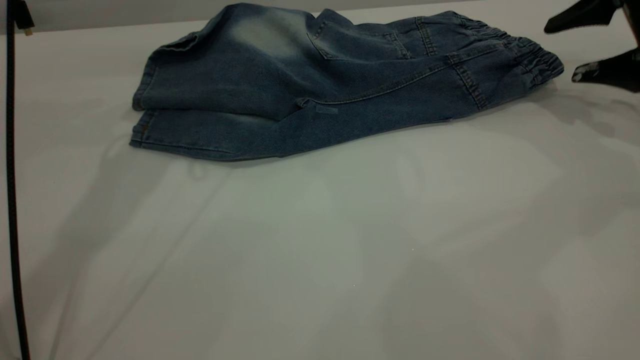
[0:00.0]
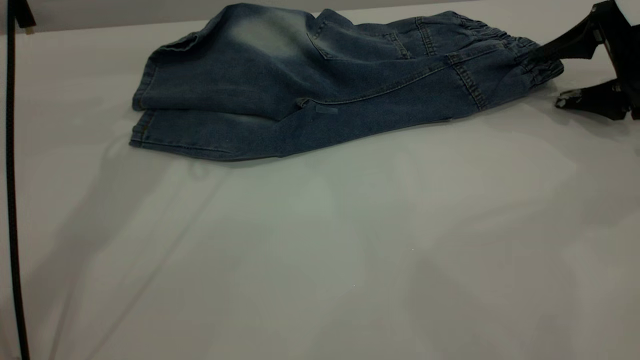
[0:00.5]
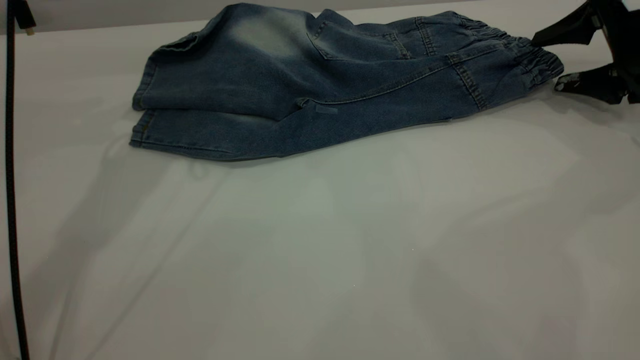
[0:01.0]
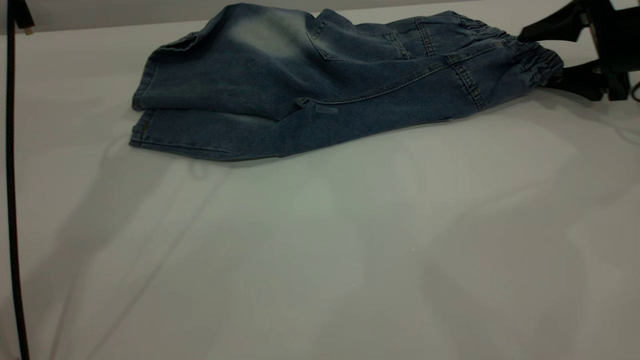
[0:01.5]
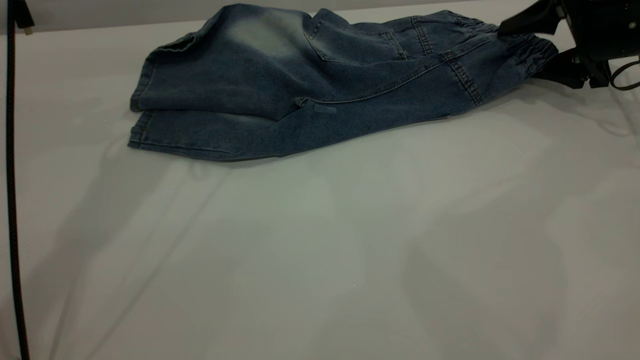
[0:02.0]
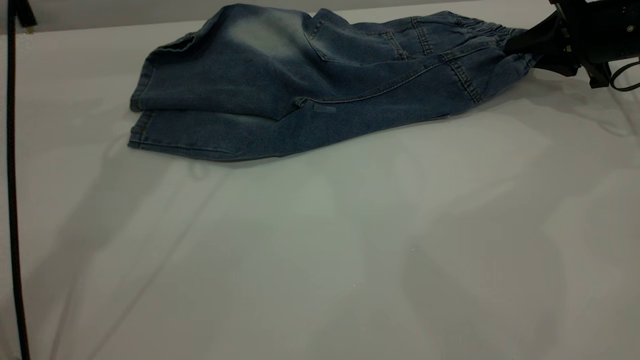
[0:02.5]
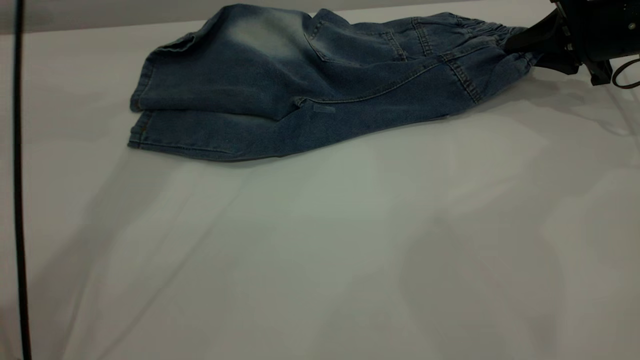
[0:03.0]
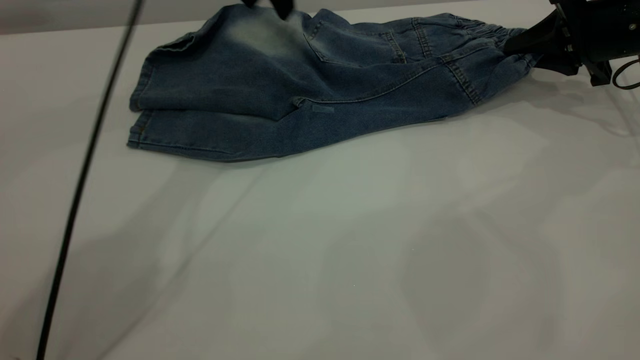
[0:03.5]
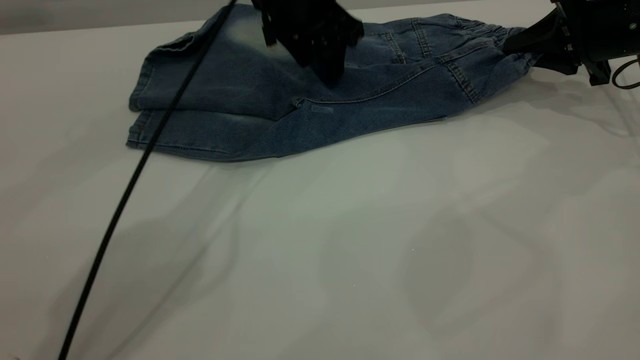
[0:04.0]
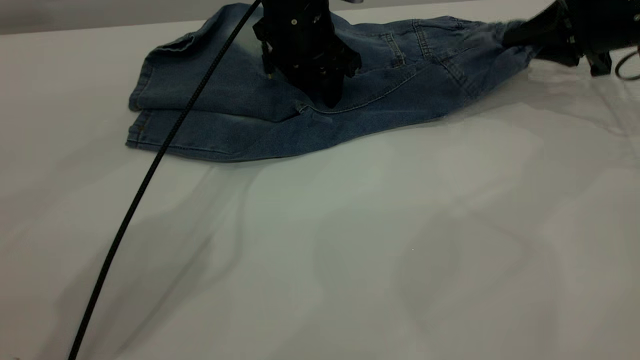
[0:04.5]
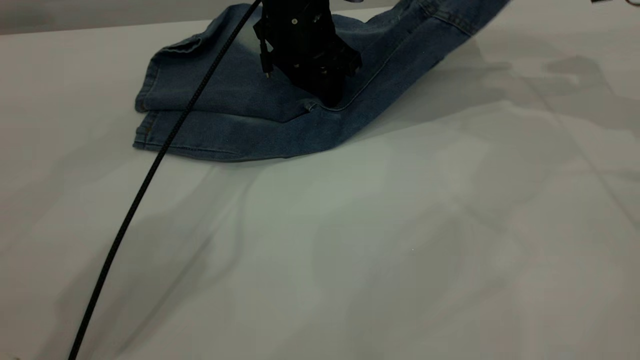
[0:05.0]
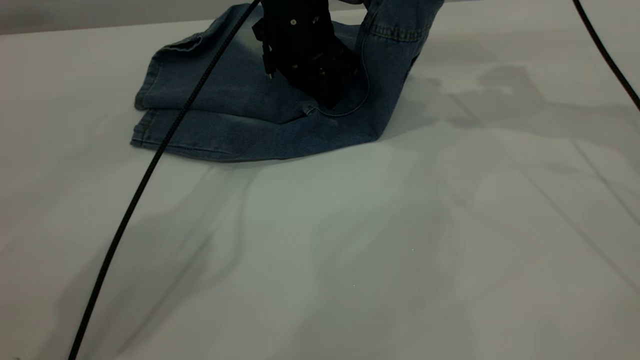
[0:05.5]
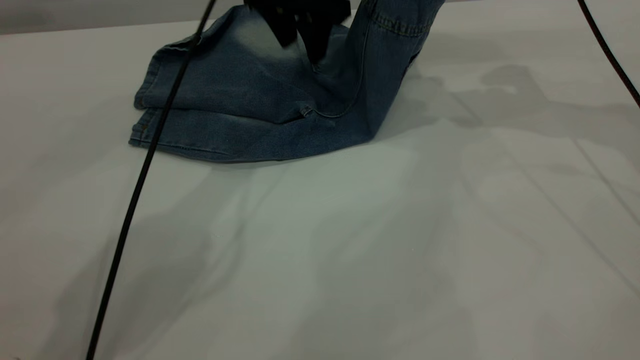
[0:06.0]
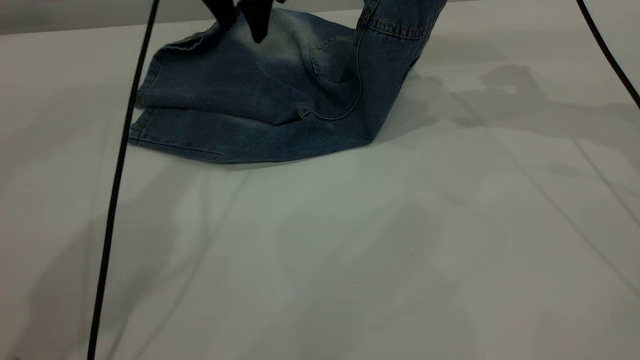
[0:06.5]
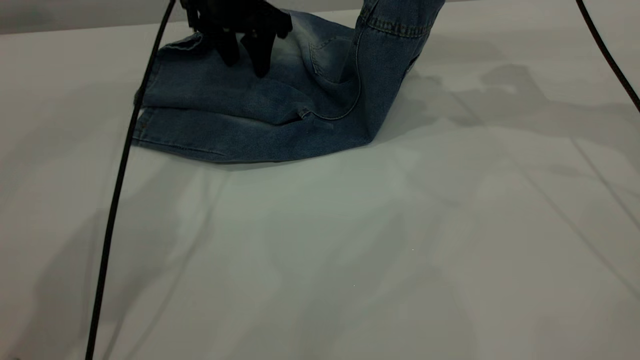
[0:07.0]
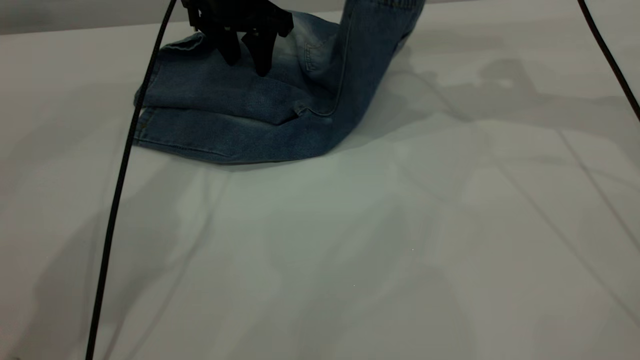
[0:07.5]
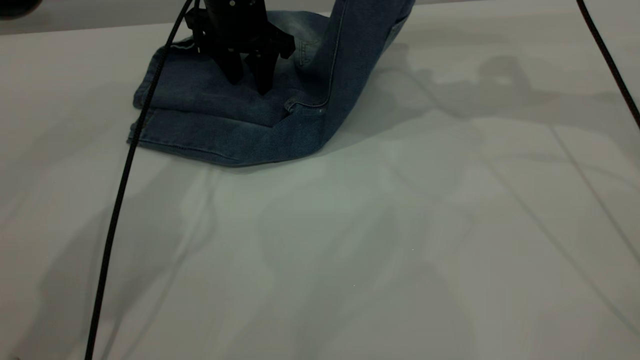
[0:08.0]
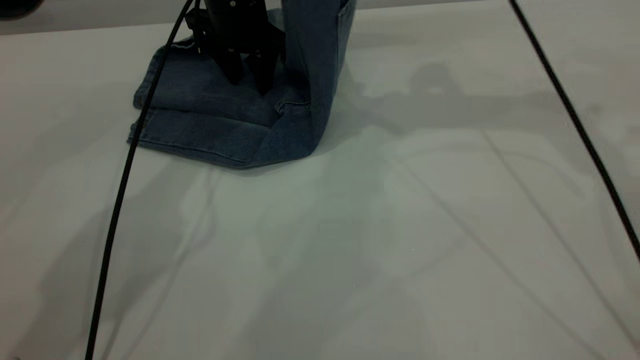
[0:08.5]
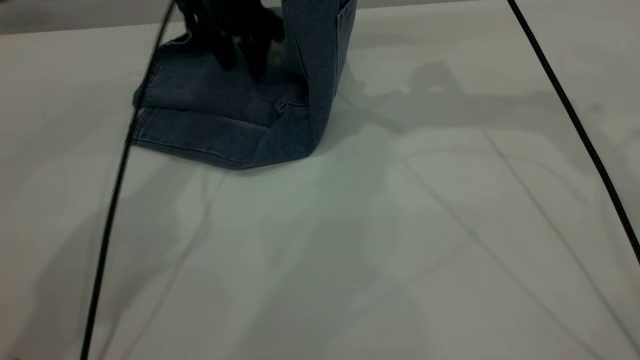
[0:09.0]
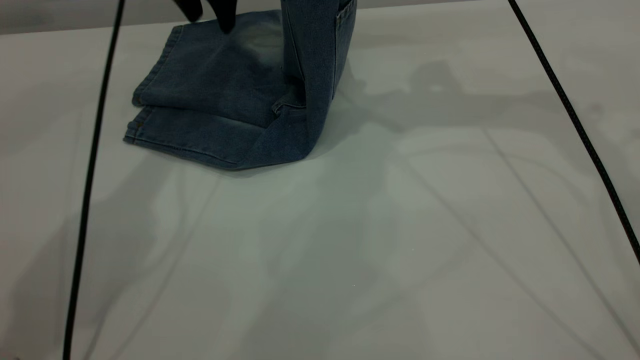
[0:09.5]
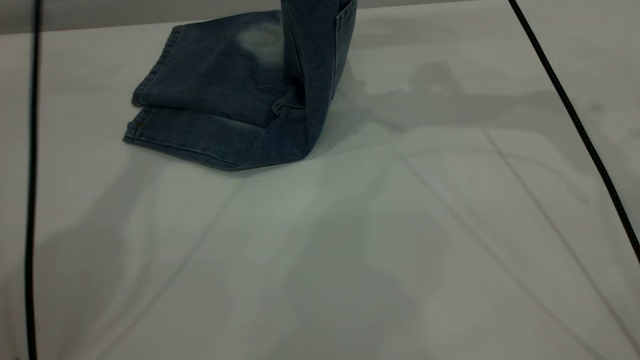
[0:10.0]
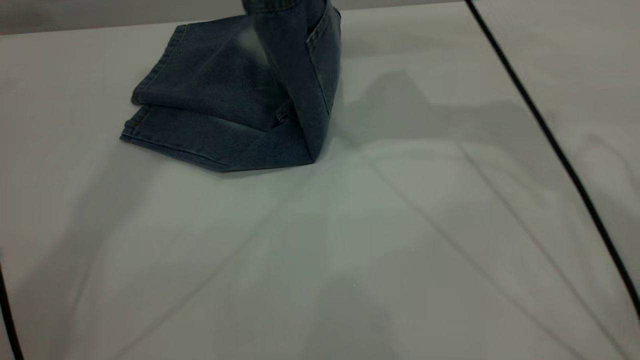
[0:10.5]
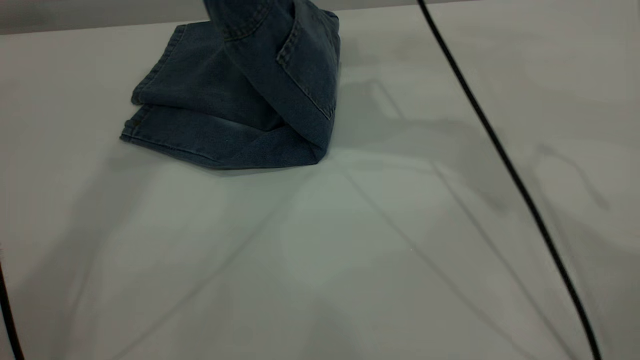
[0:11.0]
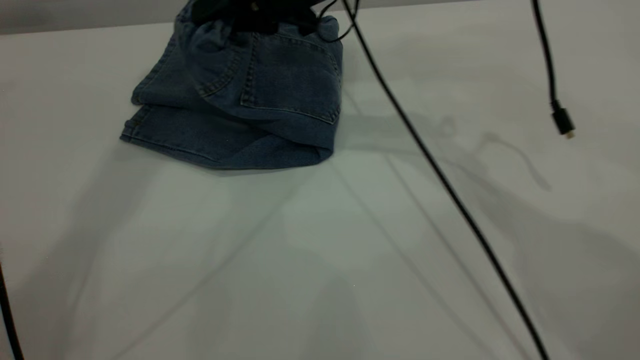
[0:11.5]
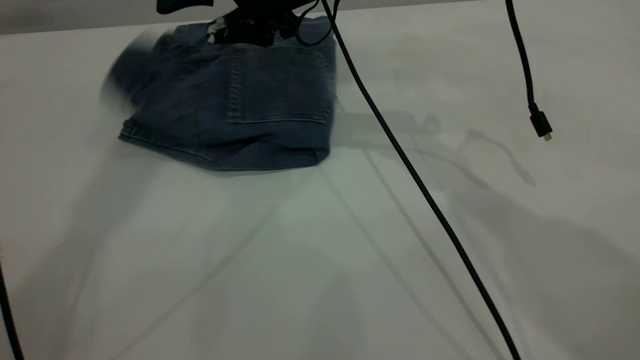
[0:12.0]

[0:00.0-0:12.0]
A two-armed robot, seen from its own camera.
0:00.0 to 0:02.0: The right gripper shifts by some 5 cm.
0:02.0 to 0:04.0: The right gripper closes, while the left gripper moves to the right, downward and forward, roughly 20 cm.
0:04.0 to 0:06.0: The right gripper shifts some 15 cm upward and to the left.
0:06.0 to 0:08.0: The left gripper heads downward and to the left, covering some 10 cm.
0:08.0 to 0:10.0: The right gripper shifts some 5 cm to the left. Meanwhile the left gripper is displaced upward by about 25 cm.
0:10.0 to 0:12.0: The right gripper moves to the left and downward, approximately 20 cm, and opens. Meanwhile the left gripper shifts roughly 15 cm upward and backward.

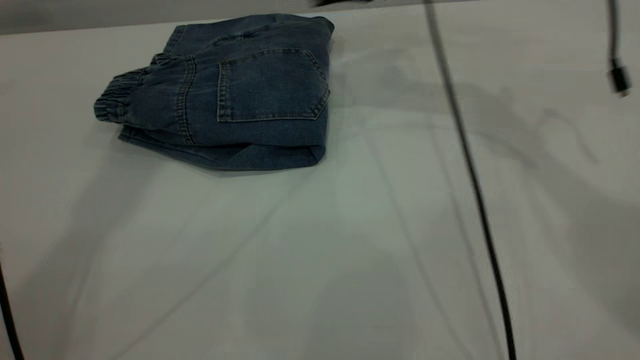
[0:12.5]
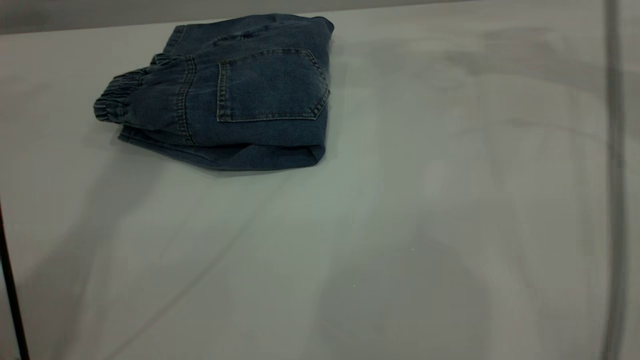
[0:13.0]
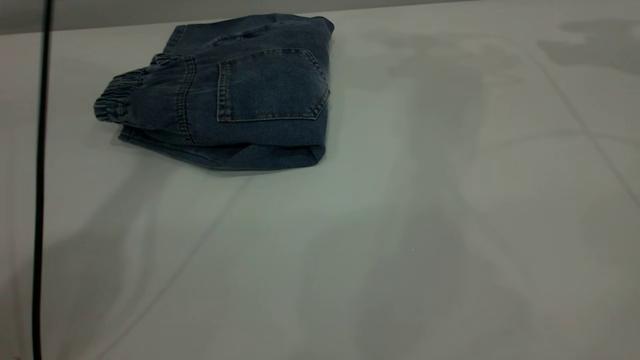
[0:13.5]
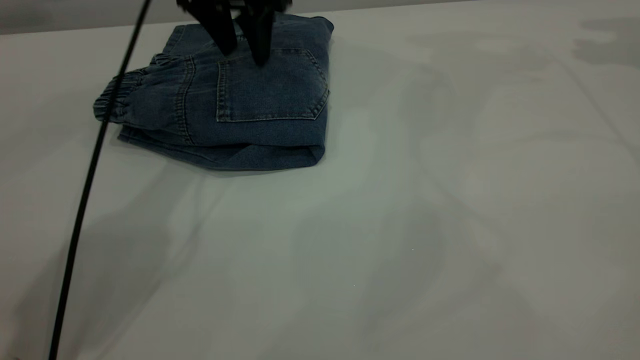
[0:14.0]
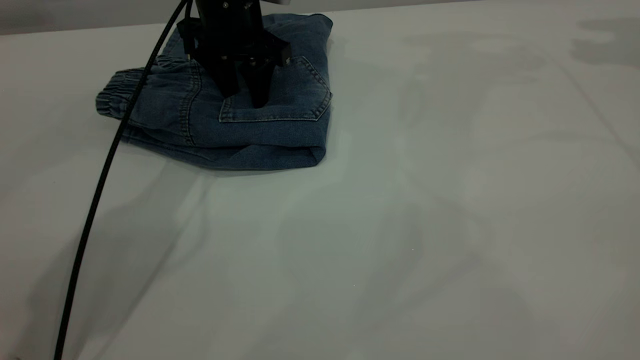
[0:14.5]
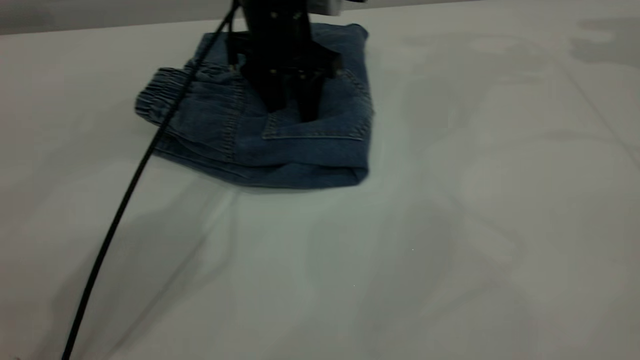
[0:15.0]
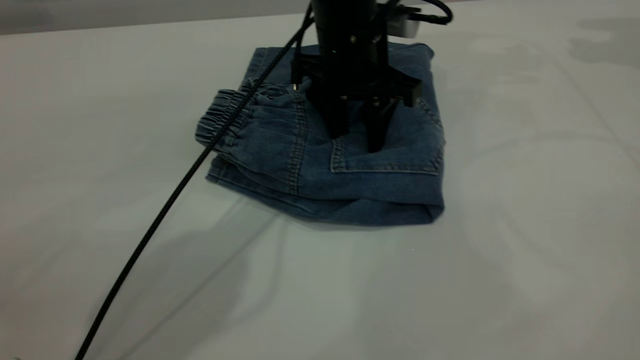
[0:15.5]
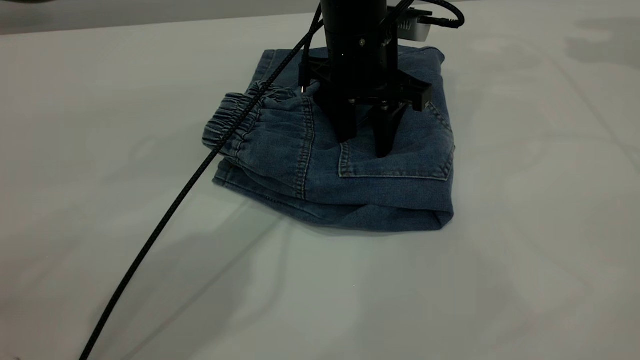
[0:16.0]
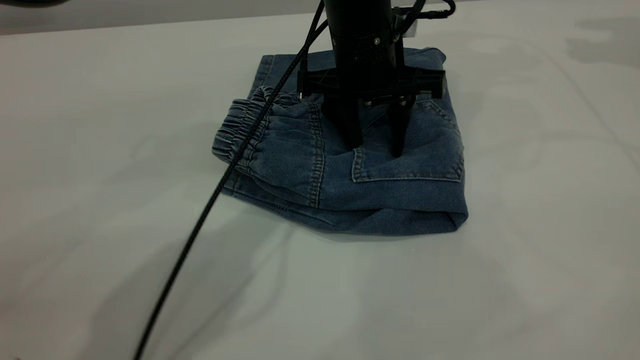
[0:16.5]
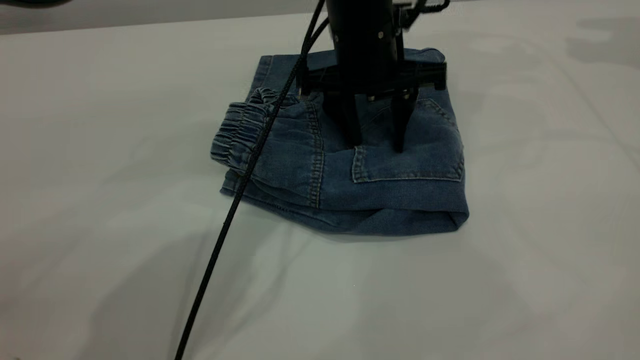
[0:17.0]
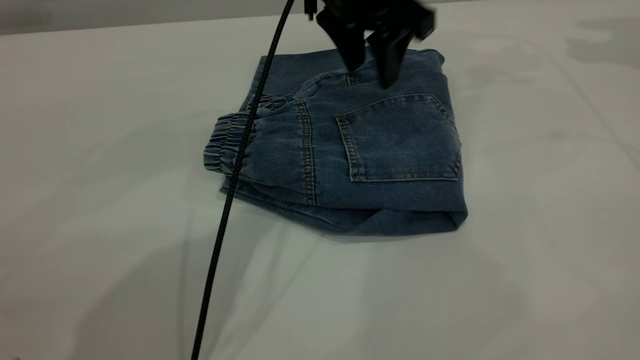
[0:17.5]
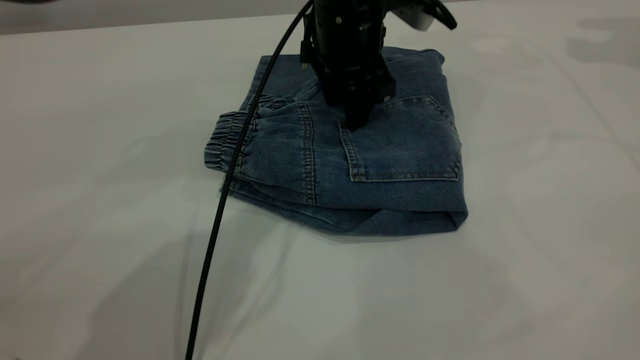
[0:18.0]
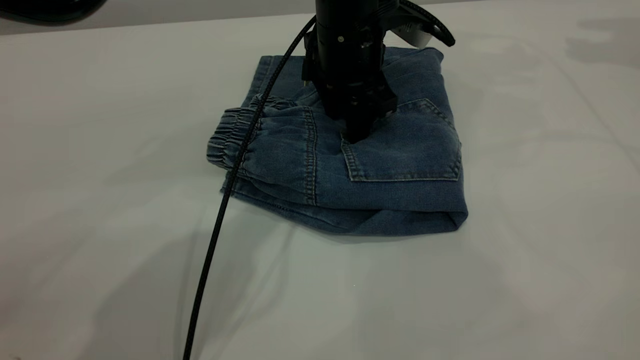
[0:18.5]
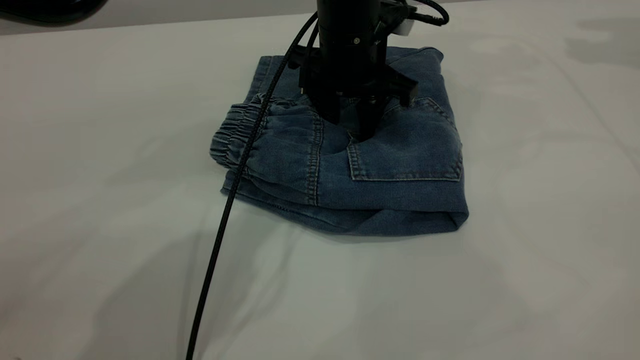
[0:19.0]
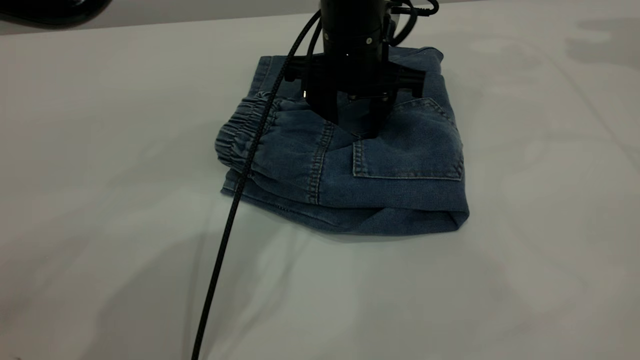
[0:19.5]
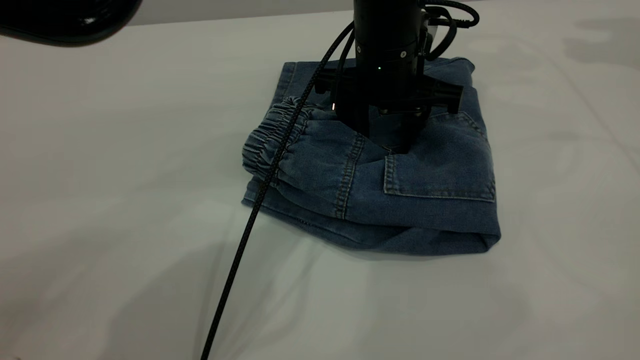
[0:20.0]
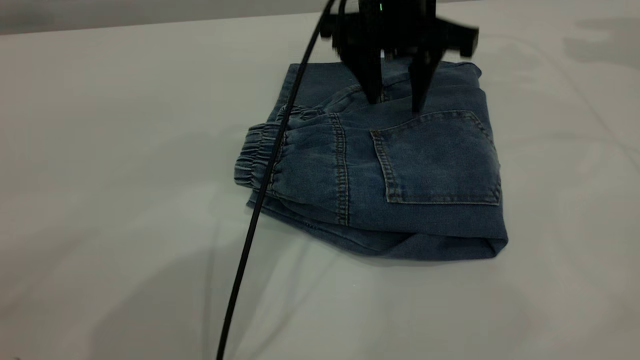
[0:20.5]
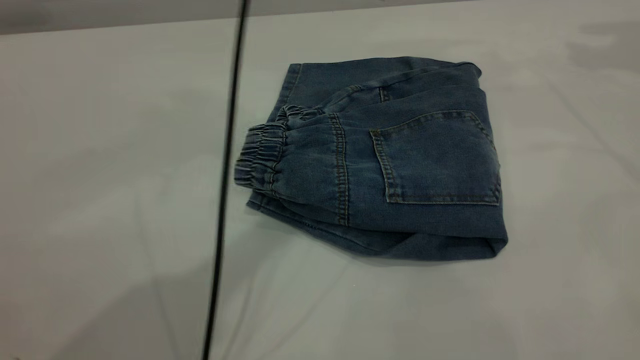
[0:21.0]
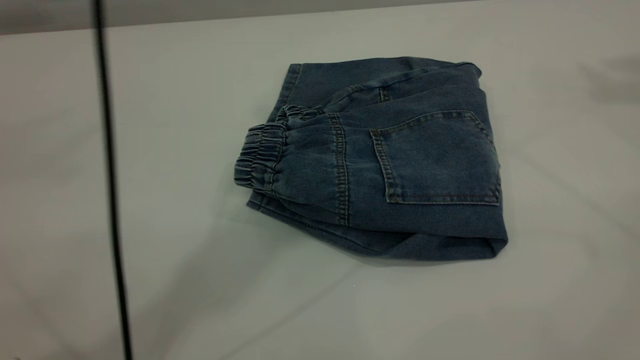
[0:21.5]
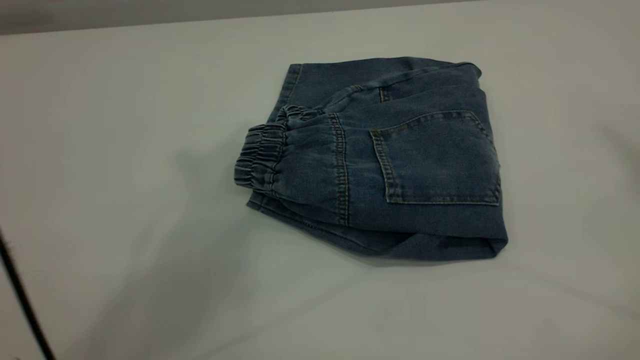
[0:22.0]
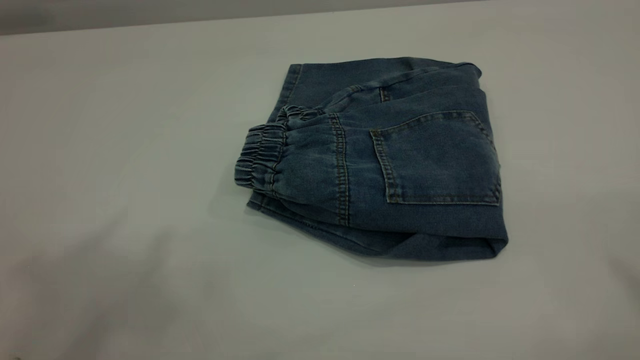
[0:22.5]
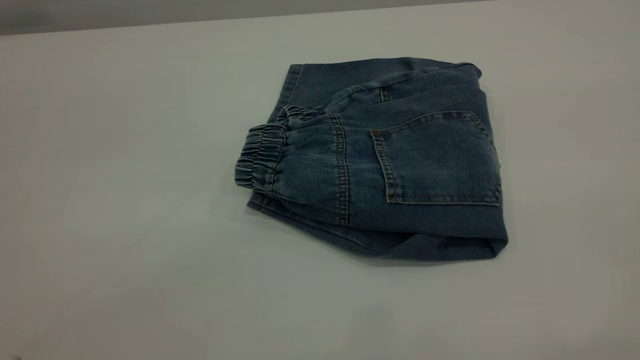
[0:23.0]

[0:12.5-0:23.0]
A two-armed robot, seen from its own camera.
0:12.5 to 0:14.5: The right gripper goes some 30 cm to the right and upward. Meanwhile the left gripper heads downward, covering about 35 cm.
0:14.5 to 0:16.5: The left gripper moves to the right and backward, about 15 cm.
0:19.0 to 0:21.0: The right gripper is displaced upward by roughly 5 cm. Meanwhile the left gripper moves upward, about 20 cm.
0:21.0 to 0:23.0: The left gripper goes roughly 50 cm backward, to the left and upward. Meanwhile the right gripper travels backward by some 50 cm.
